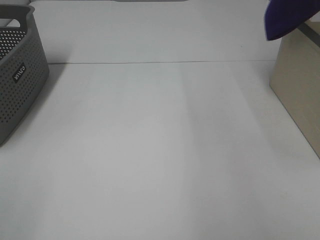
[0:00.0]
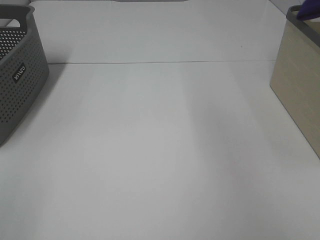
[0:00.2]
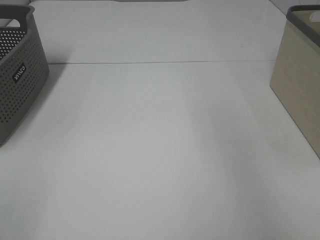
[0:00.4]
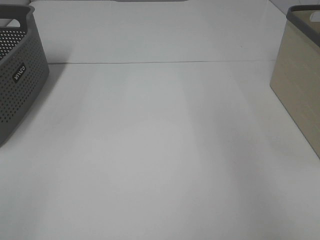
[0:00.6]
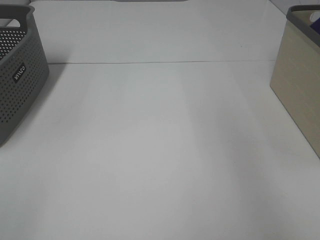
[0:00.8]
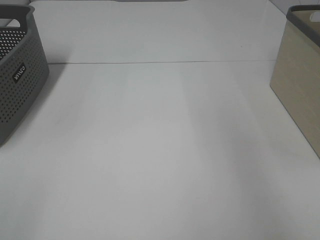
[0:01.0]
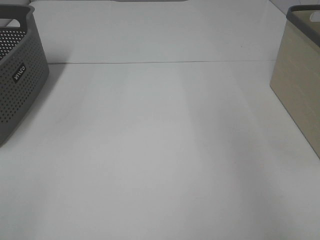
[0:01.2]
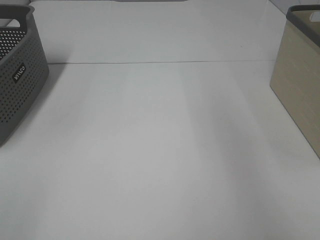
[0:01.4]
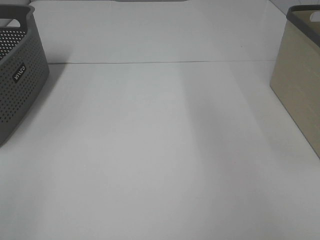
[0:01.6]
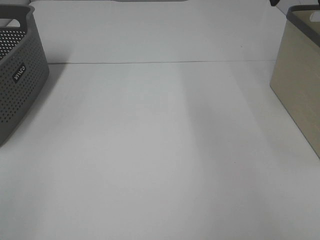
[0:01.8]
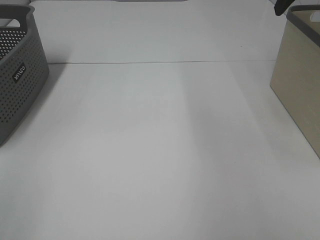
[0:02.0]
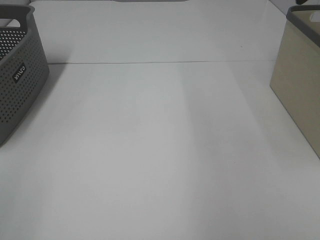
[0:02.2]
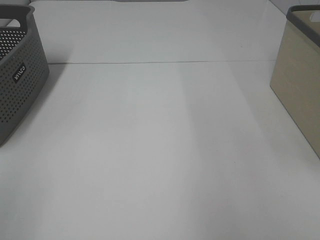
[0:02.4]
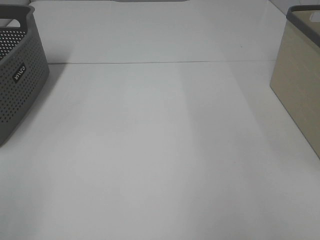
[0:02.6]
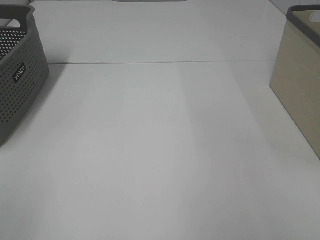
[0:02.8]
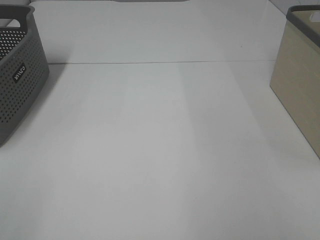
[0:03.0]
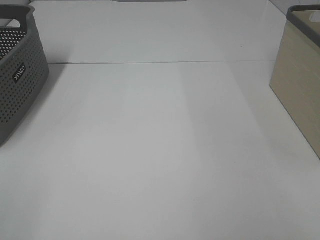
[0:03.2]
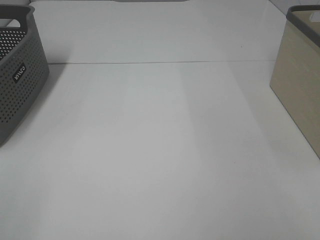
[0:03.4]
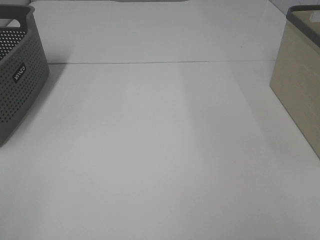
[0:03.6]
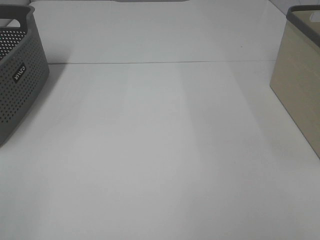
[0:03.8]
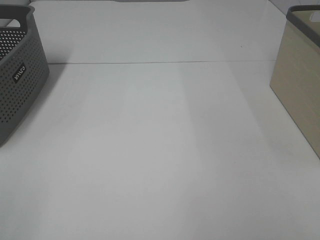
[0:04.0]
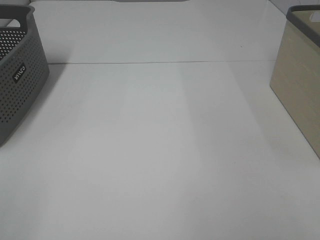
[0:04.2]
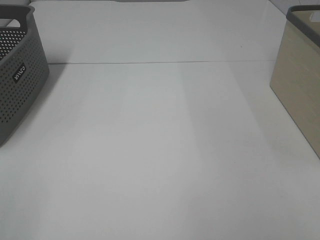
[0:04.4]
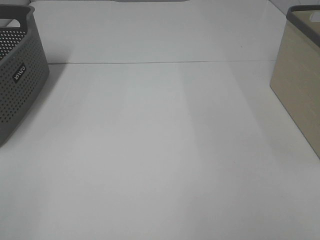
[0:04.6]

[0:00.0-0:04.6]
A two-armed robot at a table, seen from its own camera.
0:00.0 to 0:01.6: The right gripper travels to the right and back again, roughly 10 cm each way, and opens.

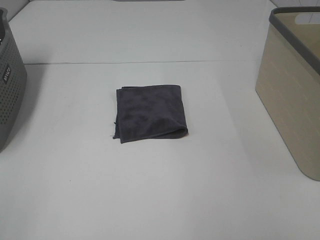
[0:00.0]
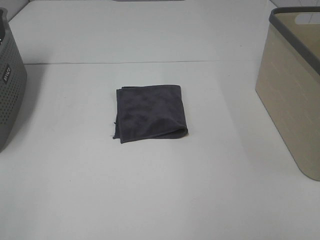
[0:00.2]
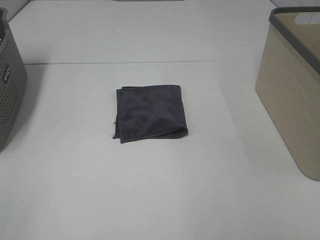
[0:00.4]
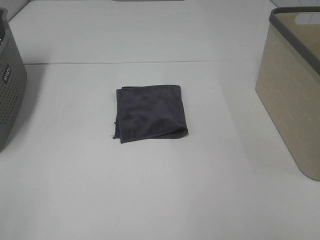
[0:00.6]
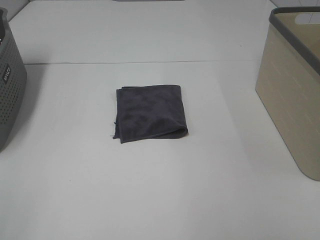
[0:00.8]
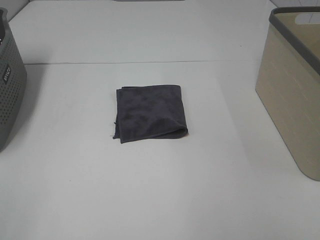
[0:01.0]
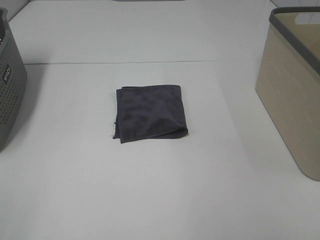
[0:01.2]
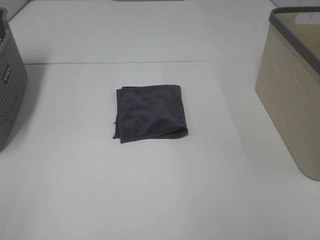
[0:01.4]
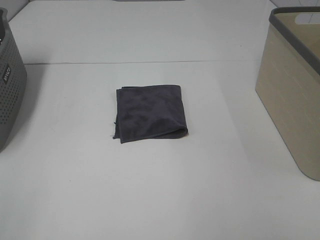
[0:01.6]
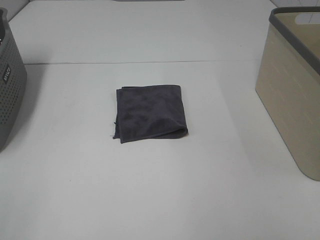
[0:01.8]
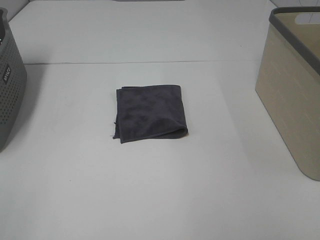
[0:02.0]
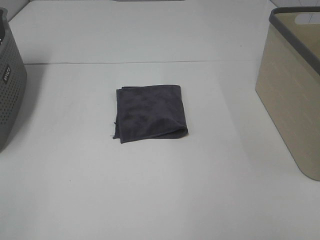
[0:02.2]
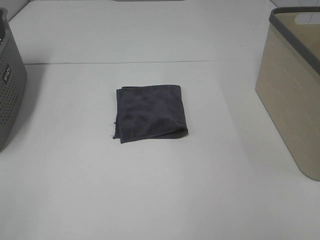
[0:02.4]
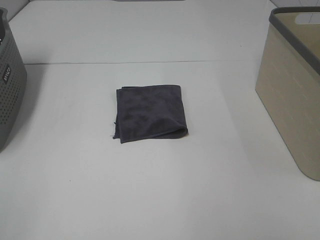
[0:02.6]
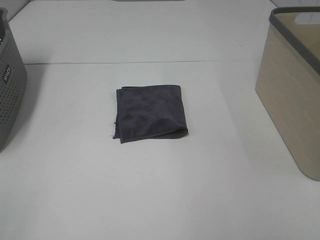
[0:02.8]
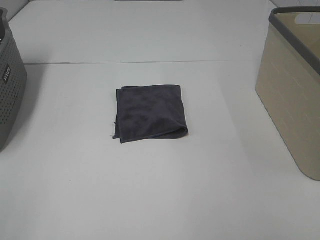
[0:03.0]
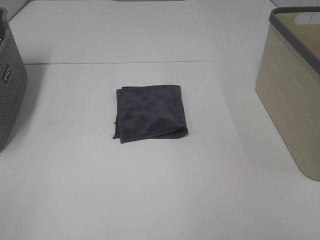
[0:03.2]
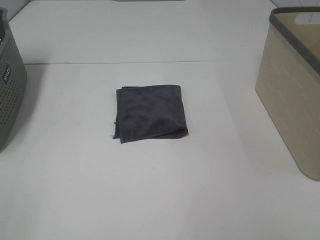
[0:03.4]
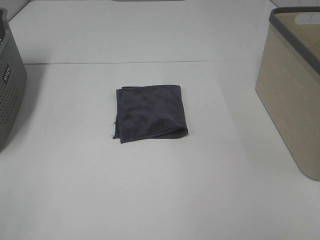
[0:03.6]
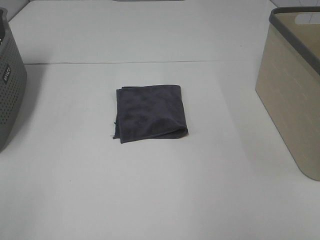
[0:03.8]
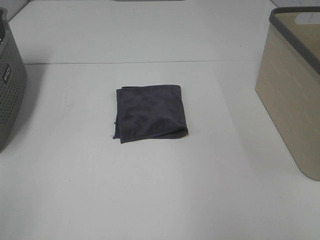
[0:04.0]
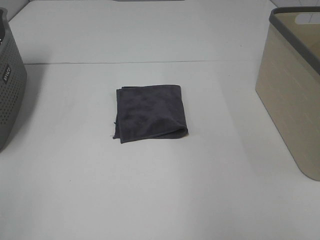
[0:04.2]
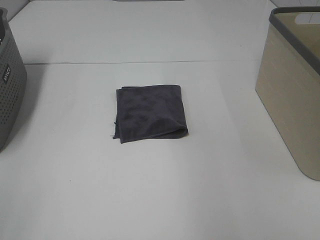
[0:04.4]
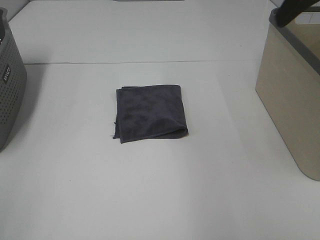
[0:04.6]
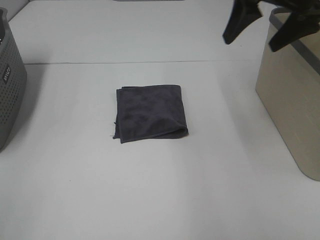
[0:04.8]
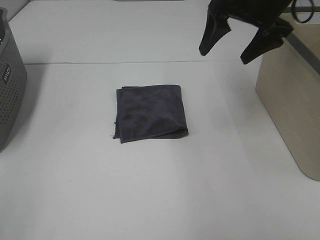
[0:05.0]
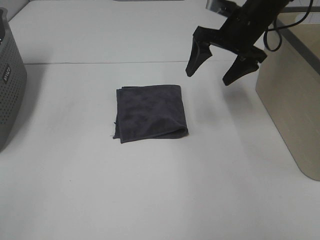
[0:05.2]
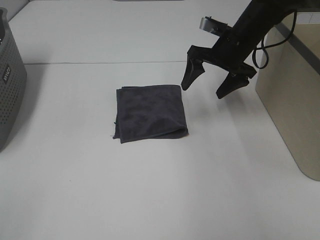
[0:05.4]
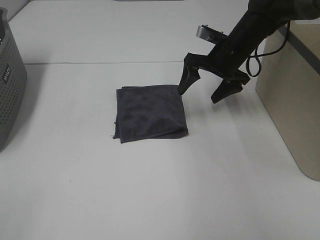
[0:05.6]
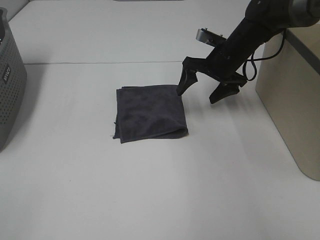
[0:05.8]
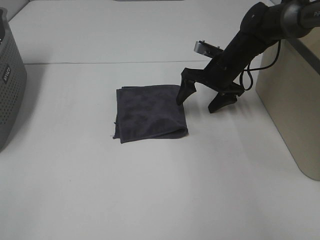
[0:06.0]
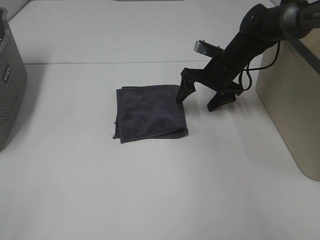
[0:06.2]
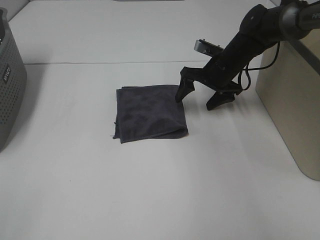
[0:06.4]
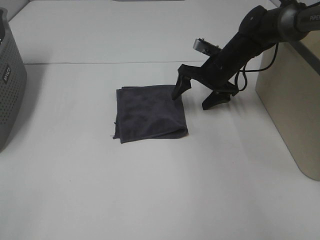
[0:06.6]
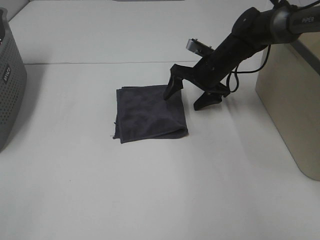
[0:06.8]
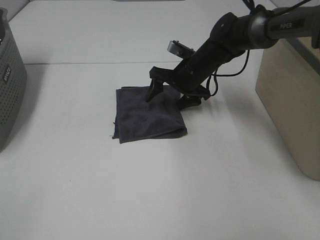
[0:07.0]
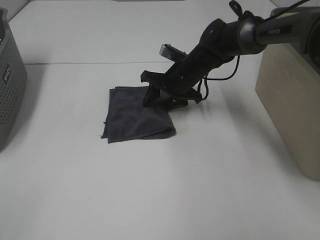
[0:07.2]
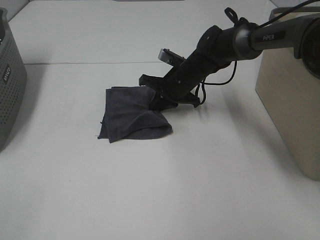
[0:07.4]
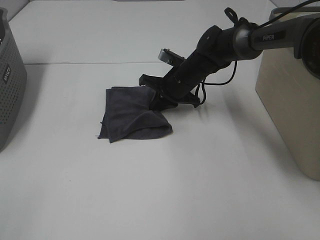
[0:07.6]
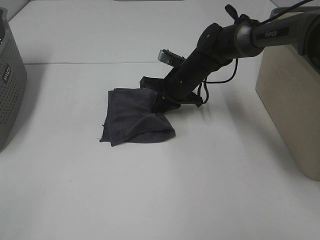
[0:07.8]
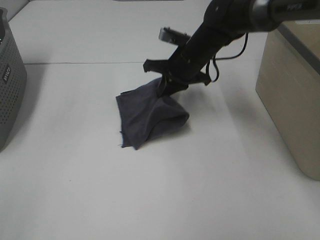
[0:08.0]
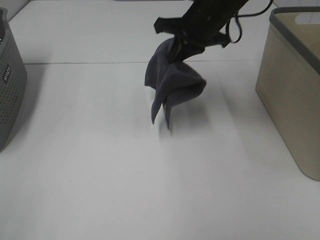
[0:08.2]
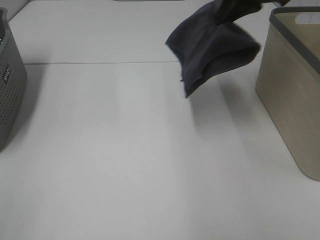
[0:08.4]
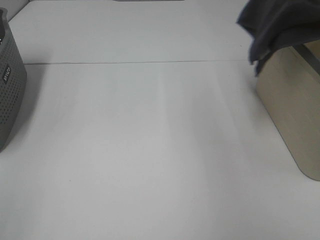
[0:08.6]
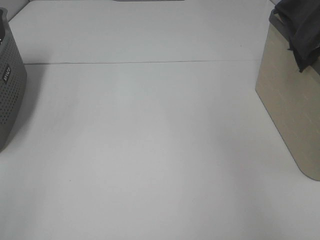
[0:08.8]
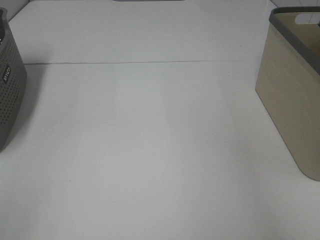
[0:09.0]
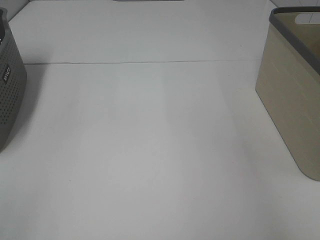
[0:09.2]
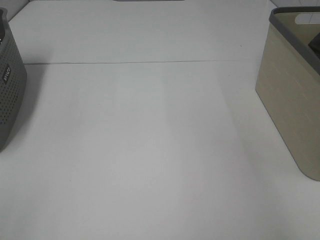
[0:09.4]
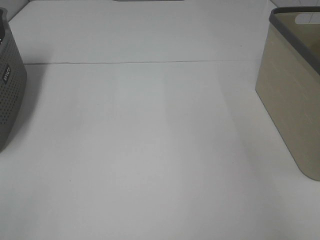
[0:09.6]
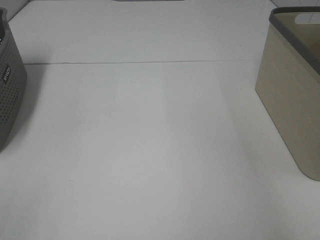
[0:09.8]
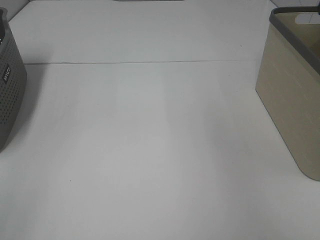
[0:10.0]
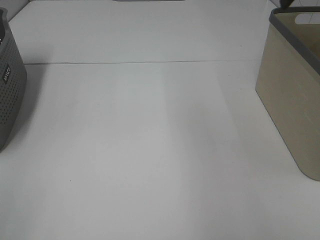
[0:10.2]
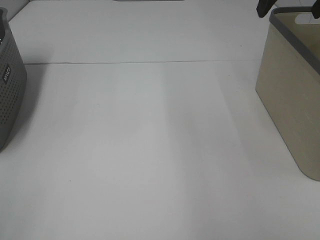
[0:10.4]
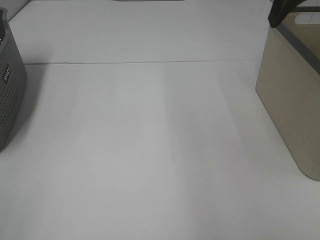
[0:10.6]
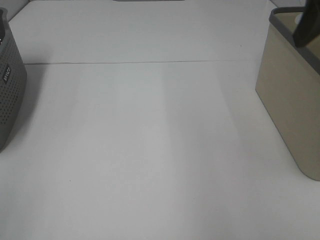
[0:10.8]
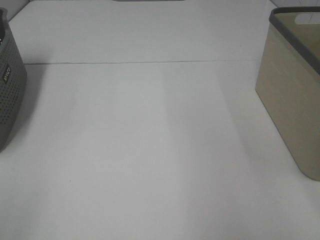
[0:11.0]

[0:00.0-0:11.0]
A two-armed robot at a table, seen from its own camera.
Step, 0:00.0 to 0:07.4: Right hand: grab the folded grey towel.
Step, 0:07.6 to 0:09.6: Right hand: place the grey towel in right basket.
0:00.0 to 0:03.2: Neither gripper changes place.
0:03.2 to 0:04.8: The right gripper heads forward, covering approximately 35 cm.
0:04.8 to 0:06.2: The right gripper is displaced downward and forward by roughly 25 cm.
0:06.2 to 0:07.8: The right gripper moves to the left, some 10 cm, and closes its fingers.
0:07.8 to 0:09.4: The right gripper heads to the right and upward, covering approximately 40 cm.

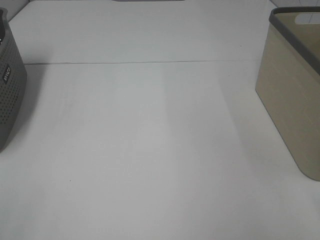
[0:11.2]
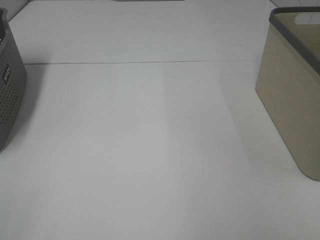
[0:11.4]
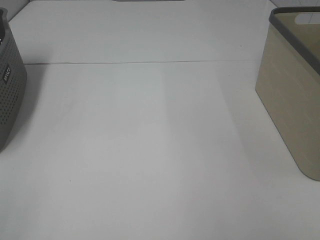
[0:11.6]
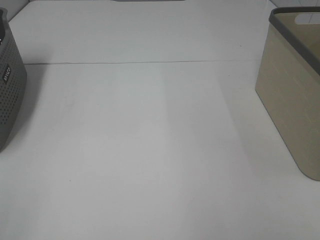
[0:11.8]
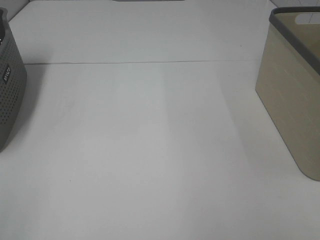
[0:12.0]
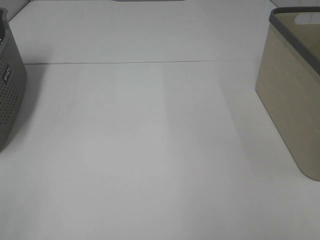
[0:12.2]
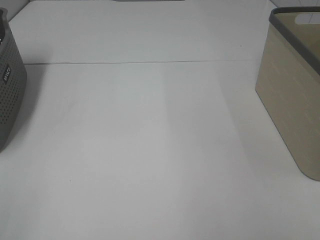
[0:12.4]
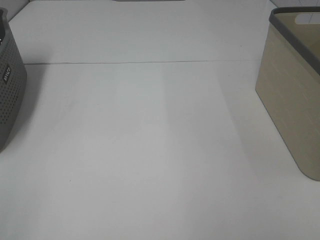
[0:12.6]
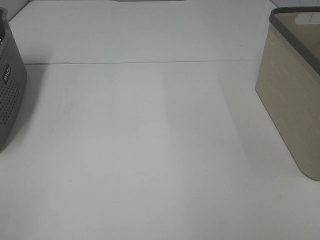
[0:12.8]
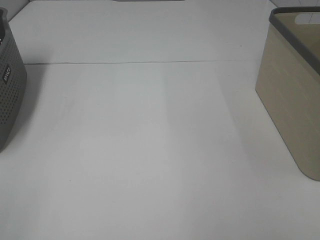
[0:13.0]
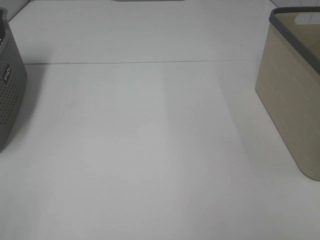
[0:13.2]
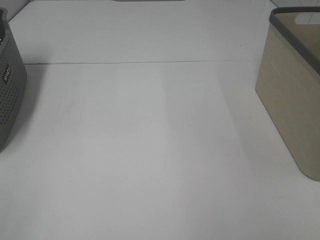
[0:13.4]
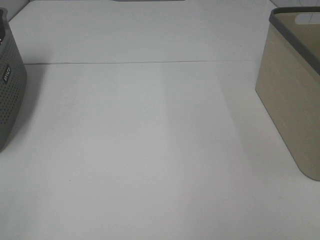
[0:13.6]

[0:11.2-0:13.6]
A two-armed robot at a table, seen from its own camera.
0:12.4 to 0:13.6: Neither gripper changes place.

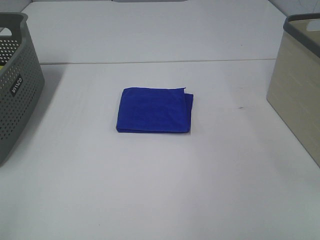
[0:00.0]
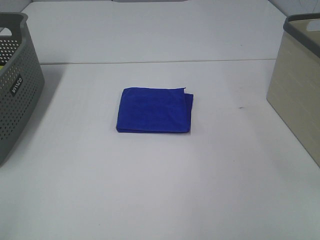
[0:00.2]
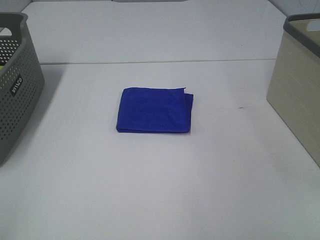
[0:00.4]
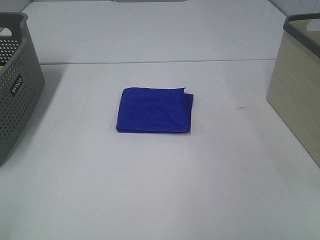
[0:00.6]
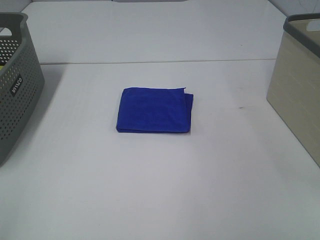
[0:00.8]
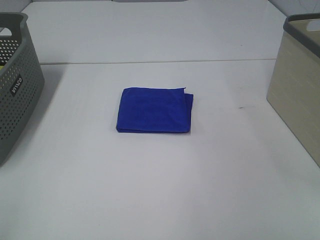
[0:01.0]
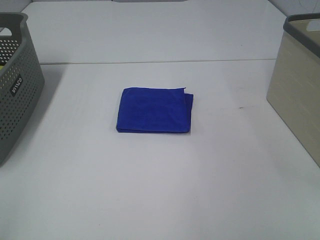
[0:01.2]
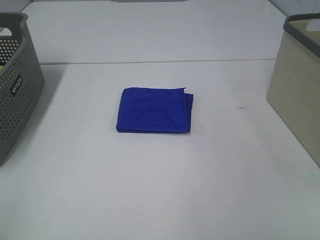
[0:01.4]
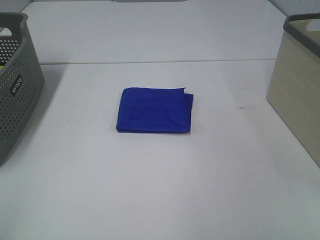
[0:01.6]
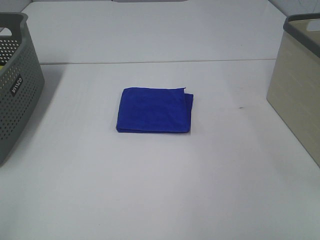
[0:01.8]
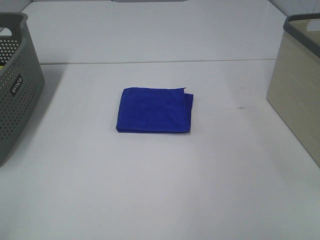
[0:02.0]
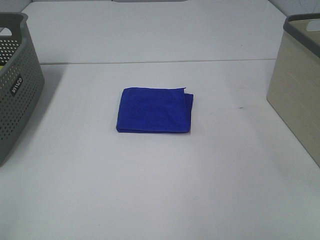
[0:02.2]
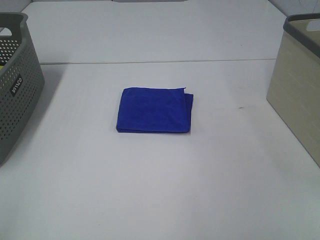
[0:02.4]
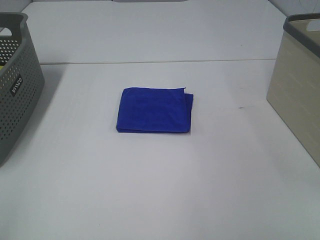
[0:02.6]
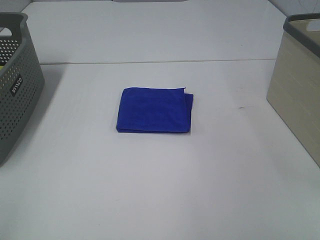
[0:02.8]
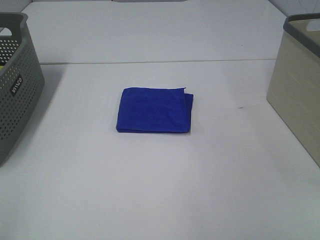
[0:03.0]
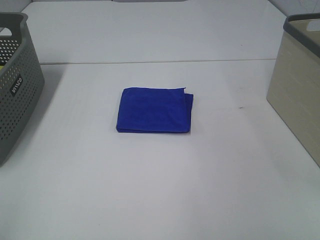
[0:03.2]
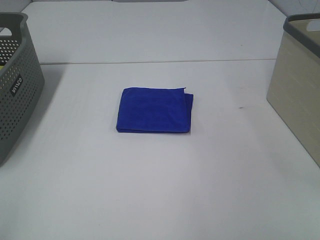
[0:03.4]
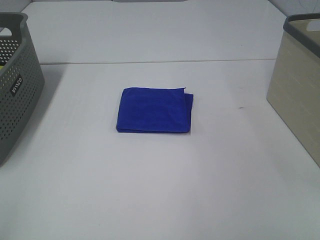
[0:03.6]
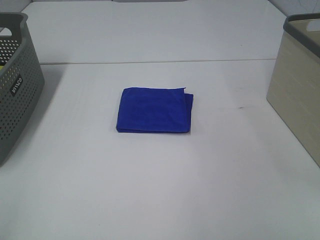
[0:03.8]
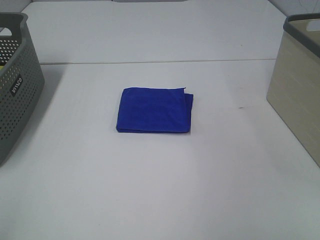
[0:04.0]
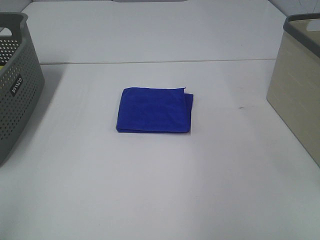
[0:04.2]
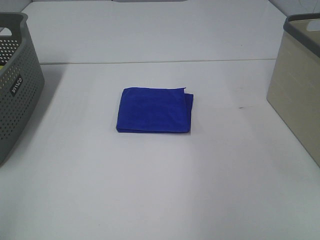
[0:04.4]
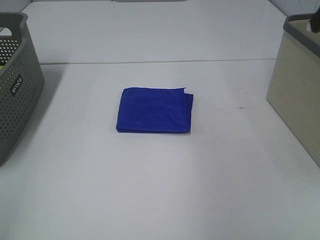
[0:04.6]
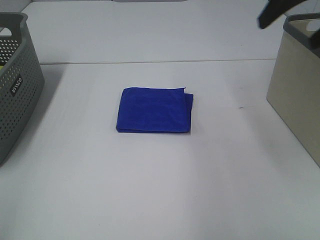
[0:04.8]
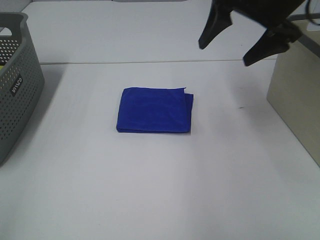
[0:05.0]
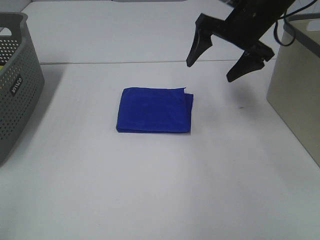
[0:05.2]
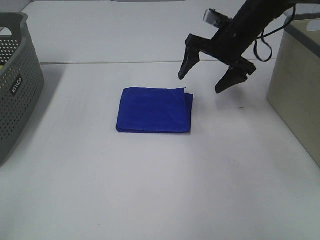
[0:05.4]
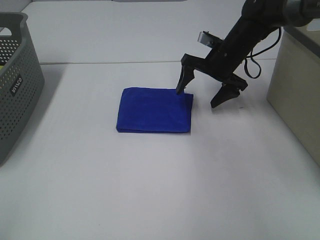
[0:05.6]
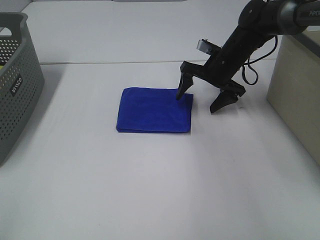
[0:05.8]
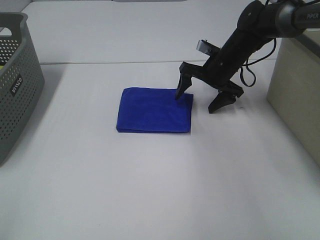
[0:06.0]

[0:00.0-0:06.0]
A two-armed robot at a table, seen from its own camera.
0:00.0 to 0:03.0: Both grippers stay put.
0:04.4 to 0:06.0: The right gripper is displaced downward, forward and to the left by about 40 cm.
